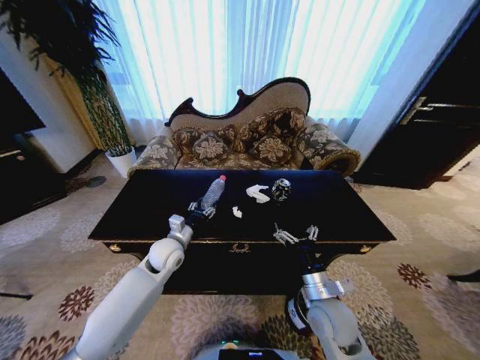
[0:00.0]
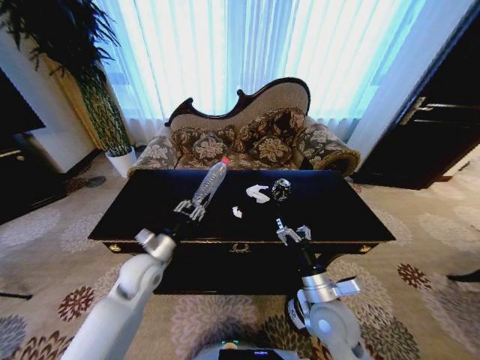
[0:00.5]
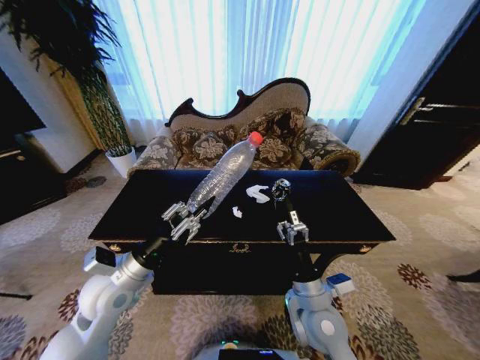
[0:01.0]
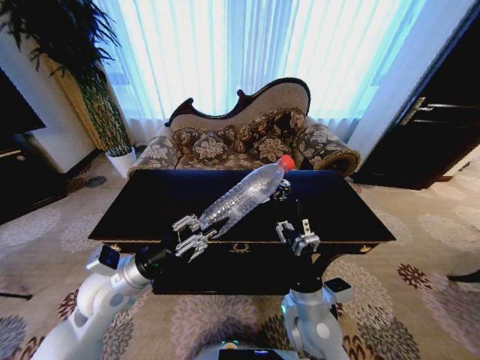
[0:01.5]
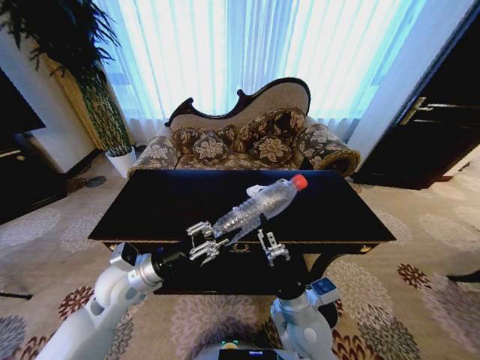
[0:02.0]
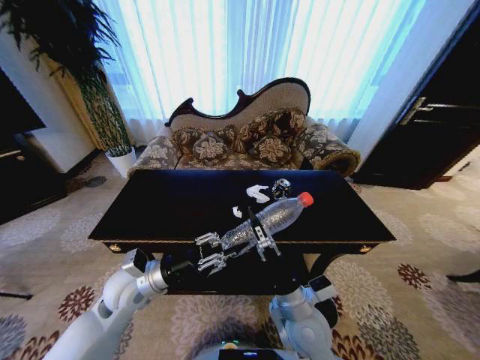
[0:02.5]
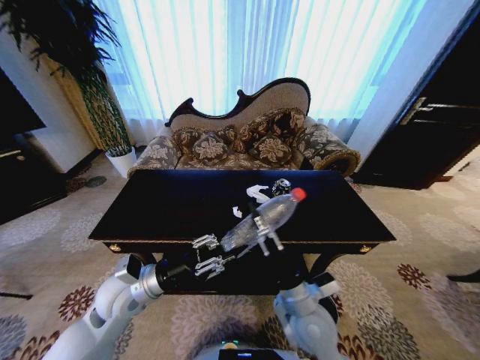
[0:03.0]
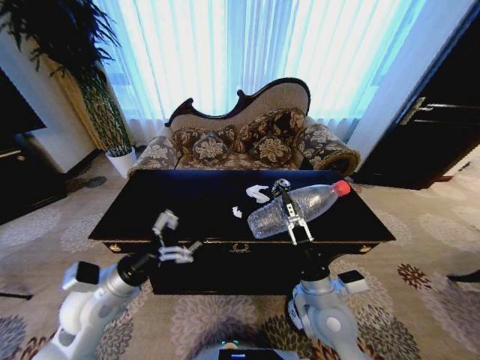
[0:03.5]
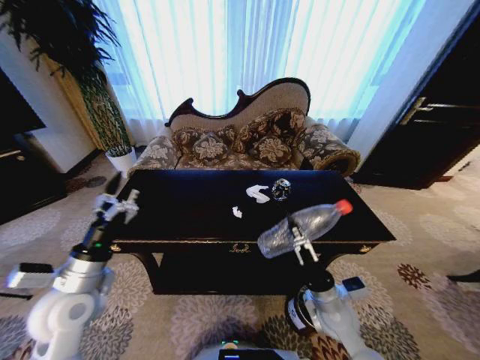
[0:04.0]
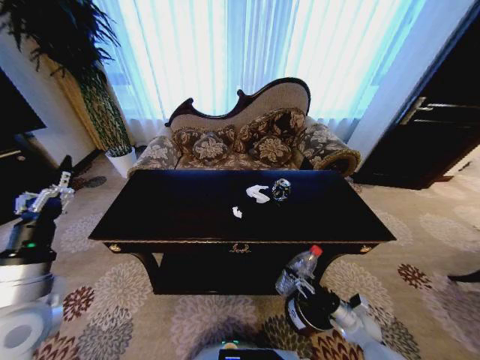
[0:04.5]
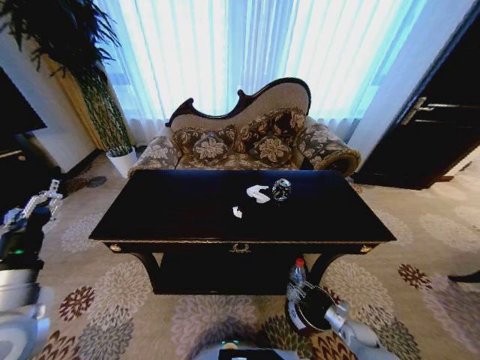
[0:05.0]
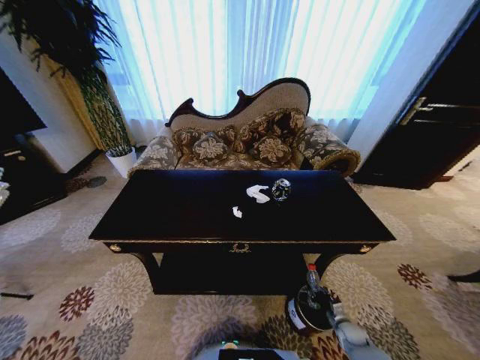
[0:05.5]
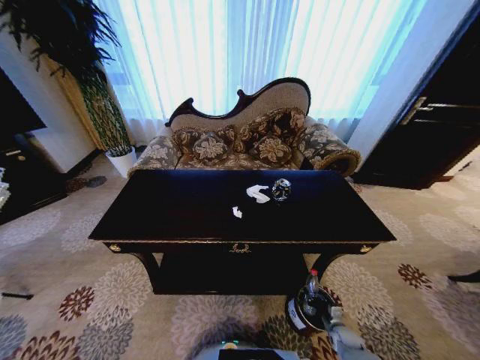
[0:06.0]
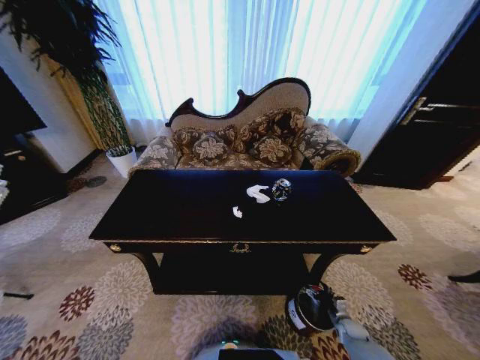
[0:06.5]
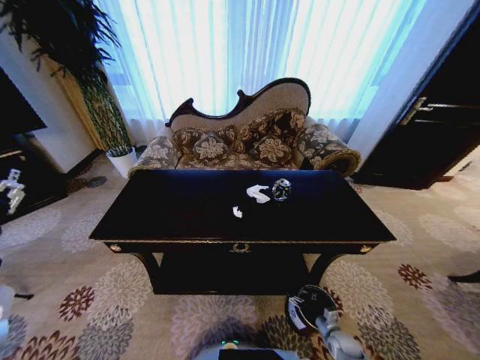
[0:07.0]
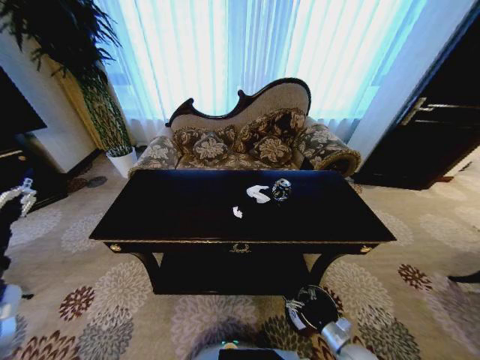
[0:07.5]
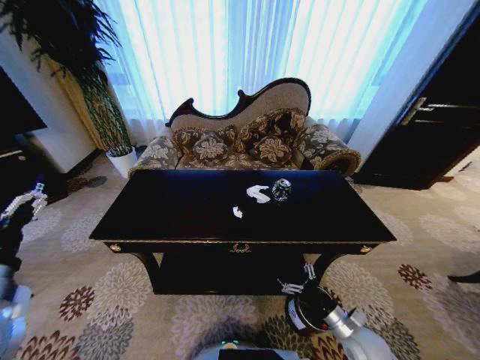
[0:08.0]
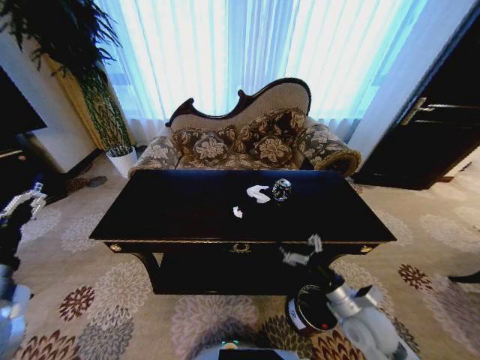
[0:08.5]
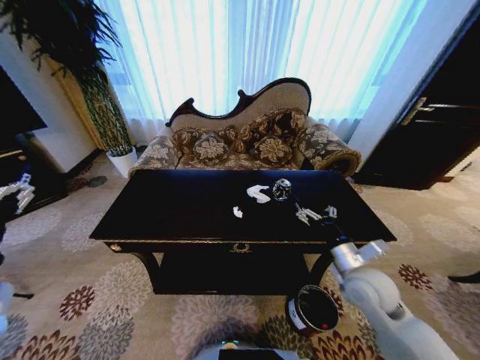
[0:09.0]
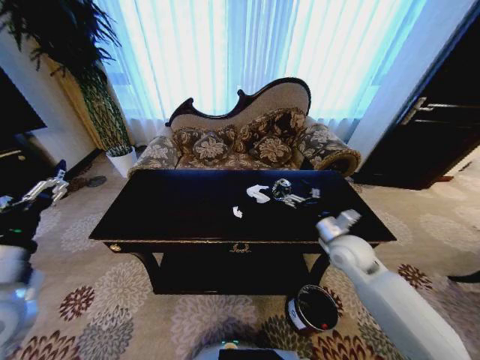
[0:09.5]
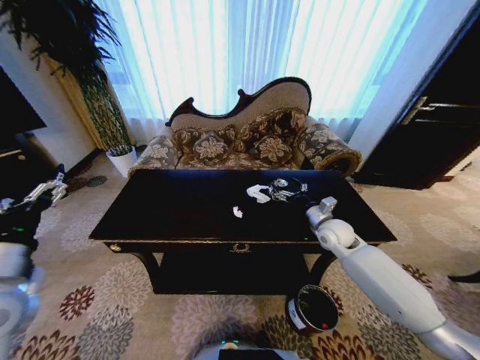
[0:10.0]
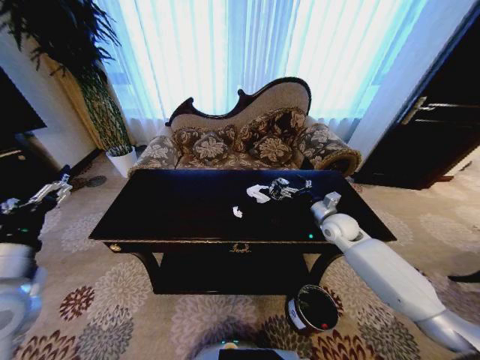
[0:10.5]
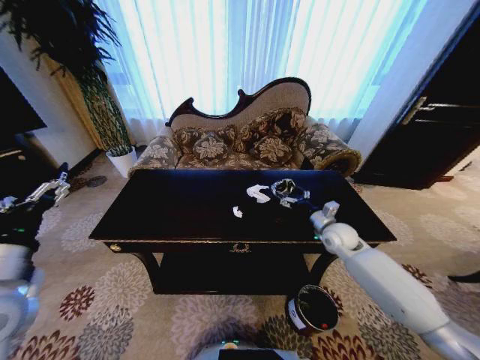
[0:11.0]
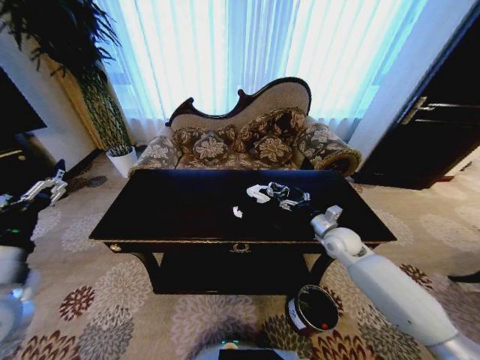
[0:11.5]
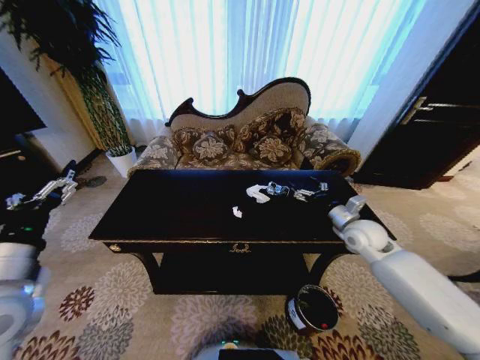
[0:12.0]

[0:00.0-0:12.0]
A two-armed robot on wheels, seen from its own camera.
Task of the whole recording: Move to the front of the table and place the trash on the table into the trash bin.
0:00.0 to 0:02.0: The left gripper shifts approximately 15 cm backward, upward and to the left, and closes. Meanwhile the right gripper travels to the left by some 10 cm.
0:02.0 to 0:04.0: The left gripper is displaced to the left and backward by roughly 10 cm, and opens its fingers, while the right gripper is displaced to the right by about 10 cm, and closes its fingers.
0:04.0 to 0:06.0: The left gripper shifts some 15 cm upward, backward and to the left. Meanwhile the right gripper goes some 35 cm downward and to the right.
0:06.0 to 0:08.0: The right gripper moves upward, some 20 cm, and opens its fingers.
0:08.0 to 0:10.0: The right gripper shifts approximately 30 cm forward and upward.
0:10.0 to 0:12.0: The right gripper goes some 5 cm to the right.

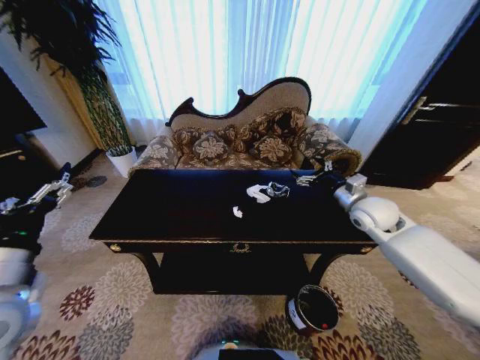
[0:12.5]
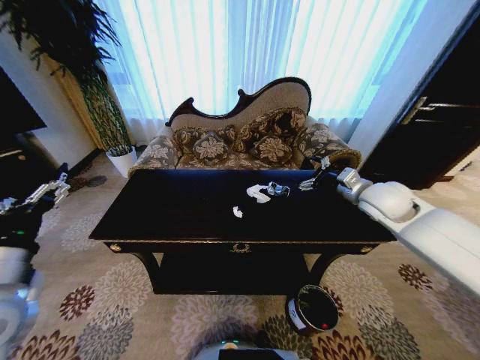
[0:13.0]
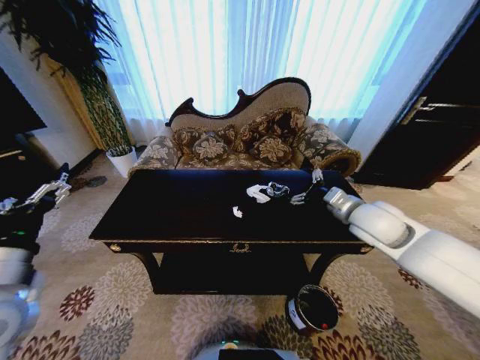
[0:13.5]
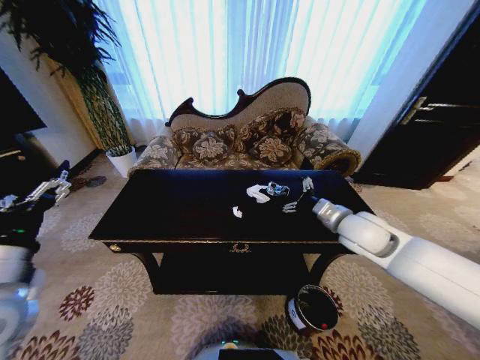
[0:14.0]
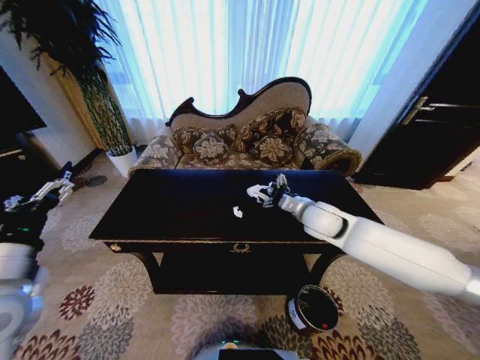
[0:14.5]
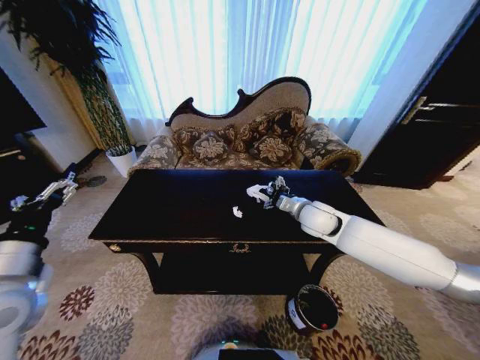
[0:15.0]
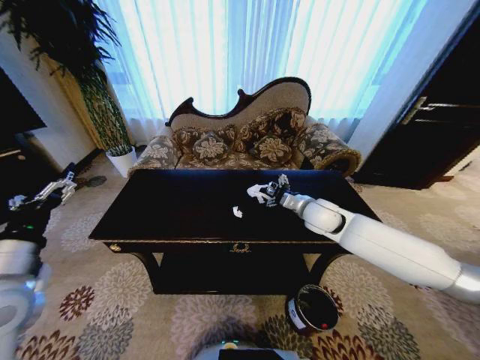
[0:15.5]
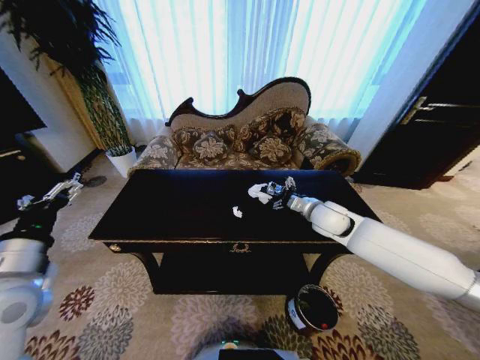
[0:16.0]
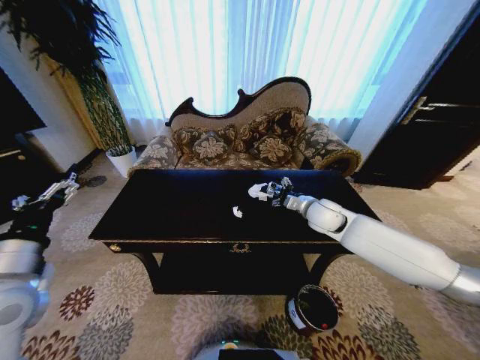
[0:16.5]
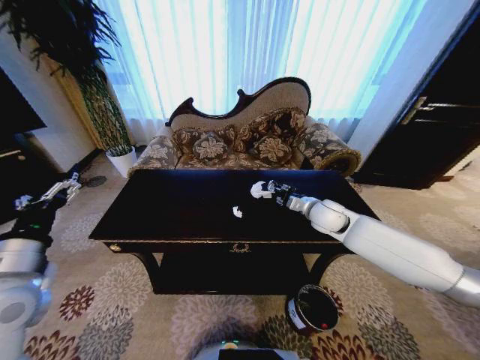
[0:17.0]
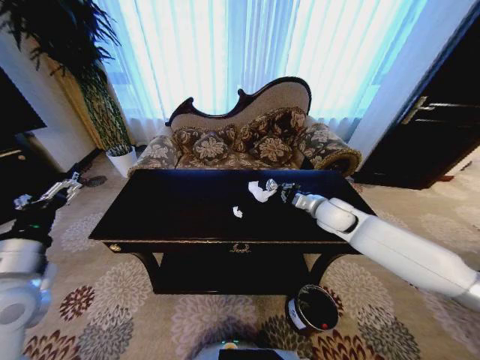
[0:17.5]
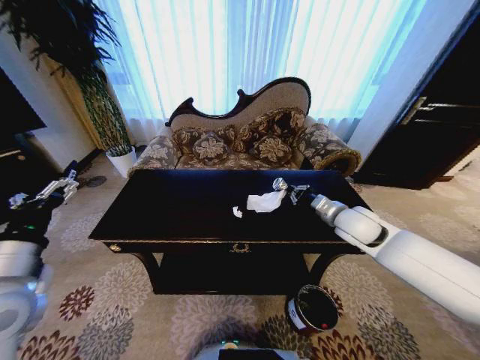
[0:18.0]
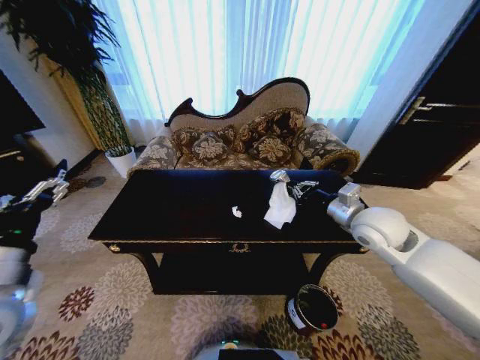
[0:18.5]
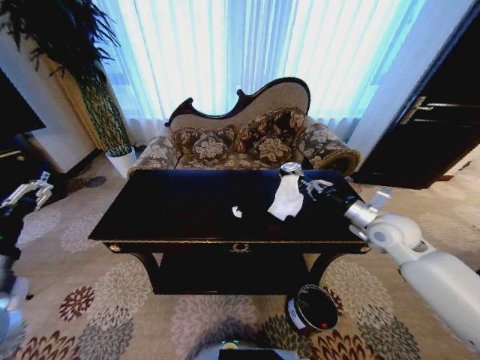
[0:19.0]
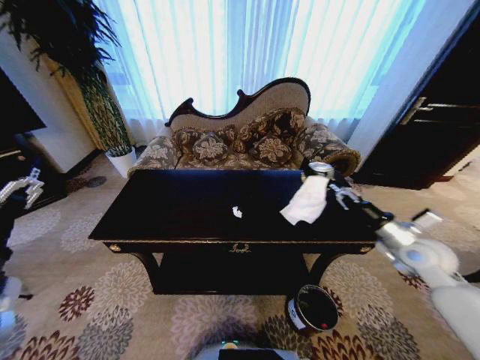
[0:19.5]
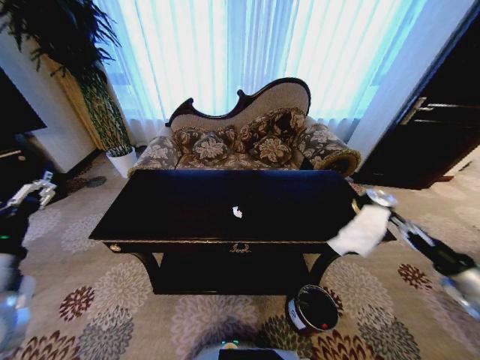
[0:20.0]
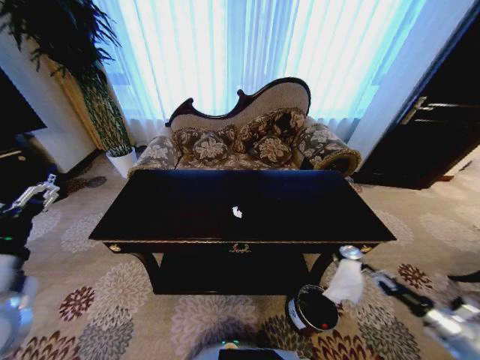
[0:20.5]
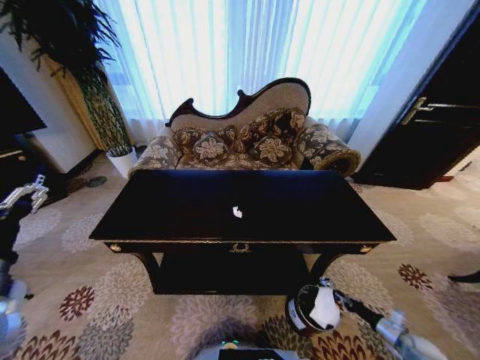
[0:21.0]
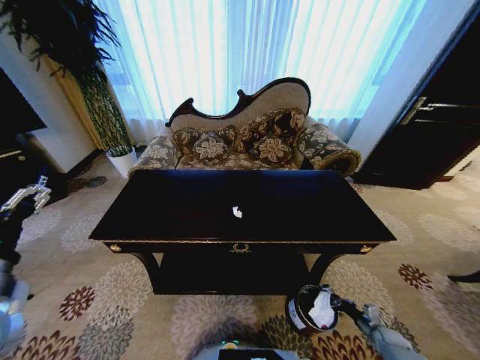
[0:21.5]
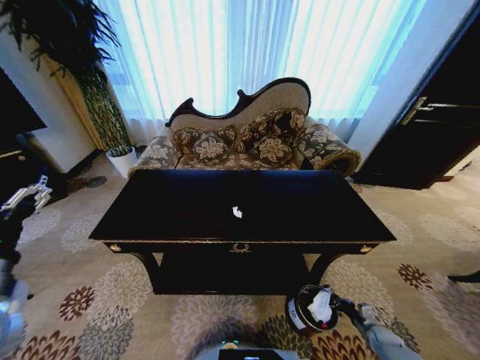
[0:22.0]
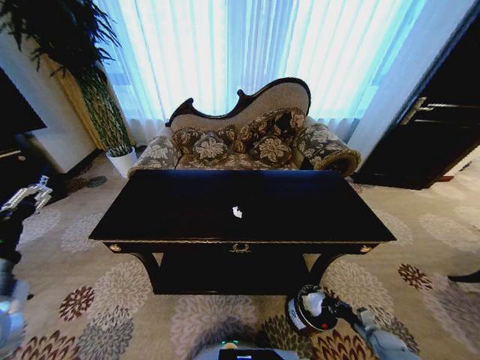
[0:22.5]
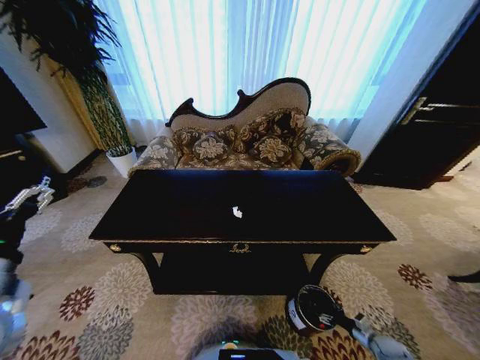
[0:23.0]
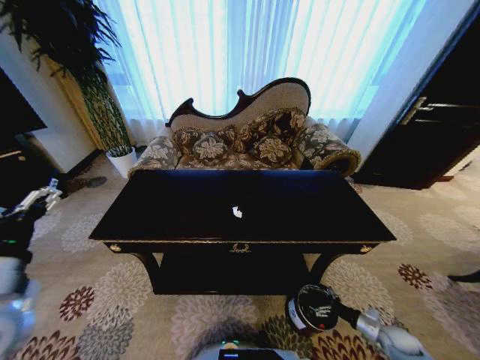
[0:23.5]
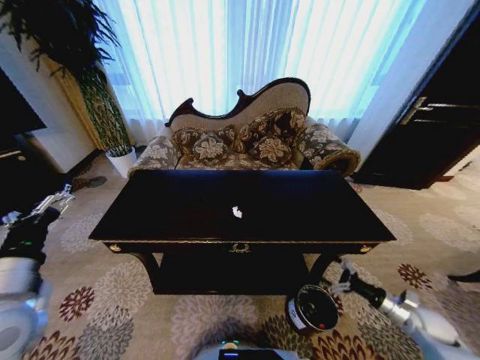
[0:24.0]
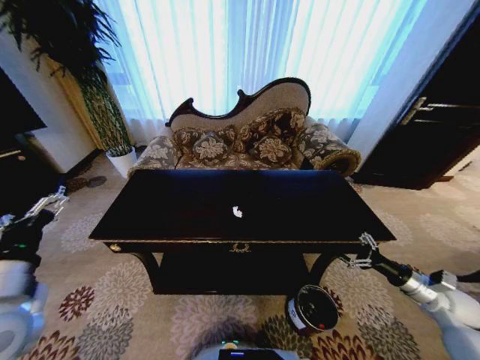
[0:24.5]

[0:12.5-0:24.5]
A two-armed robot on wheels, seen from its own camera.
Task of the whole recording: Move to the front of the table and place the trash on the table into the trash bin.
0:12.5 to 0:14.5: The right gripper shifts some 15 cm to the left.
0:14.5 to 0:16.5: The right gripper changes place by approximately 5 cm.
0:16.5 to 0:18.5: The right gripper travels backward, upward and to the right by about 15 cm, and closes up.
0:18.5 to 0:20.5: The right gripper heads to the right, downward and backward, covering about 40 cm.
0:20.5 to 0:22.5: The right gripper goes about 20 cm downward and to the left.
0:22.5 to 0:24.5: The right gripper heads upward, covering about 30 cm, and opens.

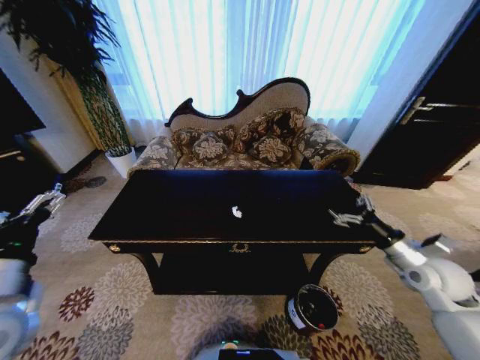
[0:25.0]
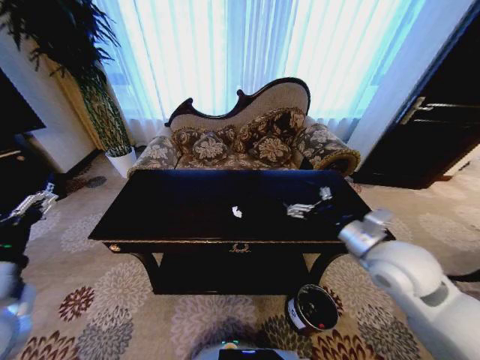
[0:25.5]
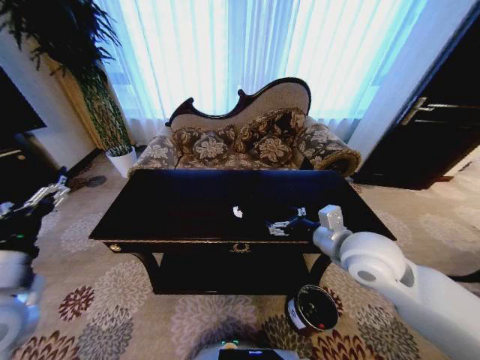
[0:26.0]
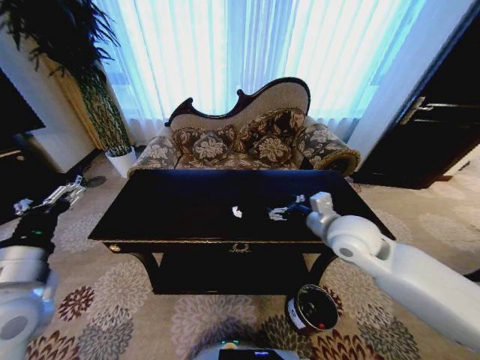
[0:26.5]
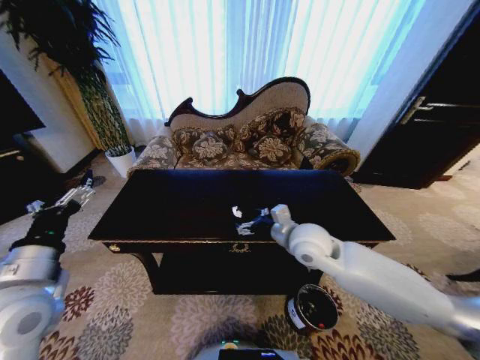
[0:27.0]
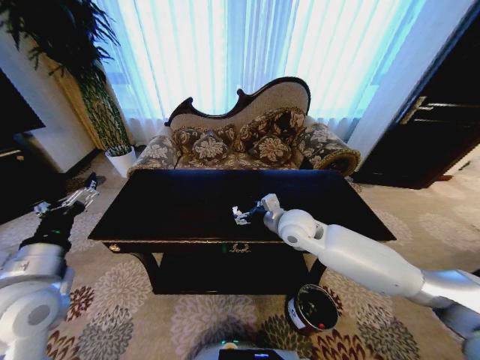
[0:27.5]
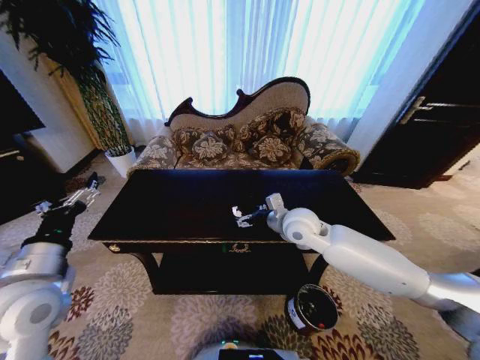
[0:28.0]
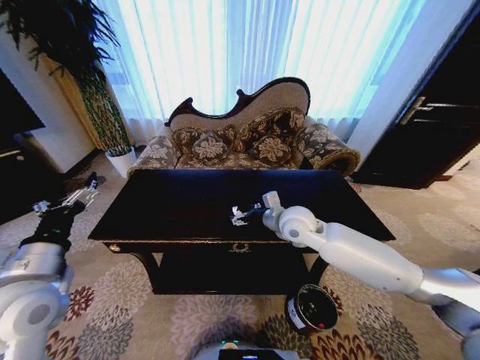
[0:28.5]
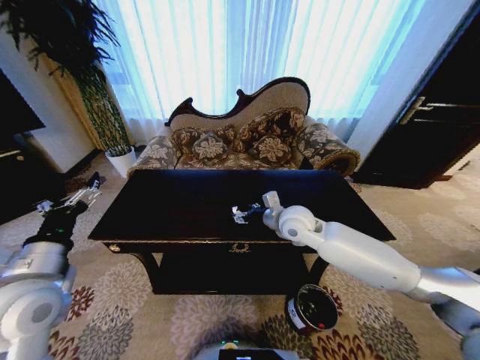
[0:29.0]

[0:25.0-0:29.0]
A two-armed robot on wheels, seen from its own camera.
Task of the whole recording: Move to the front of the table and place the trash on the table into the trash bin.
0:25.0 to 0:27.0: The right gripper is displaced to the left by roughly 30 cm.
0:27.0 to 0:29.0: The right gripper shifts roughly 5 cm forward.
